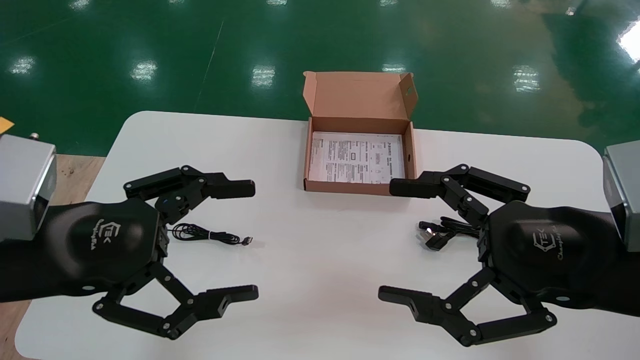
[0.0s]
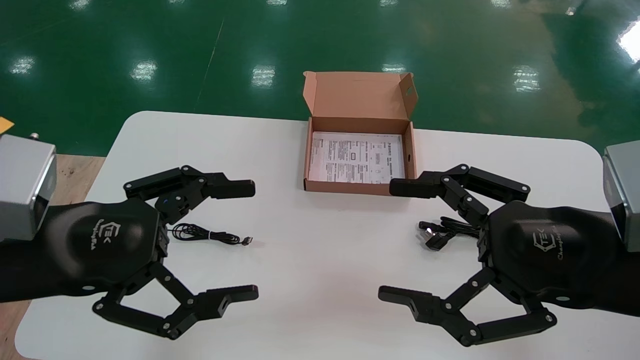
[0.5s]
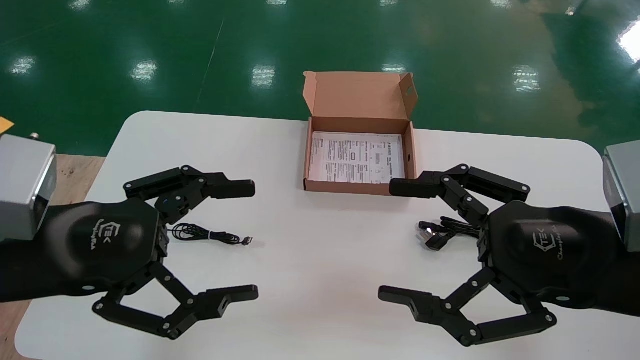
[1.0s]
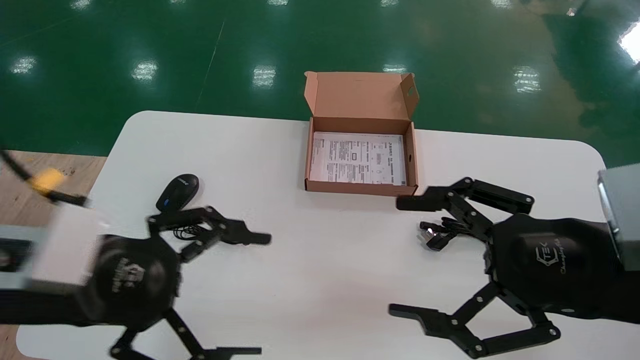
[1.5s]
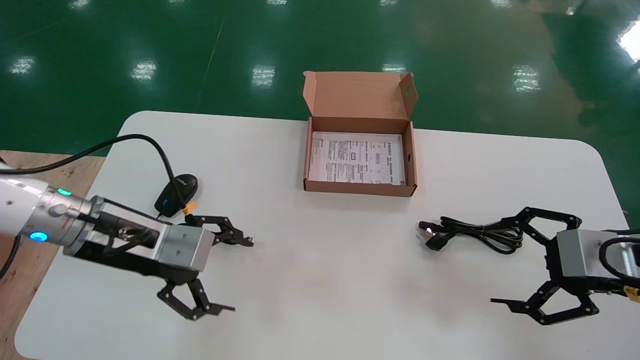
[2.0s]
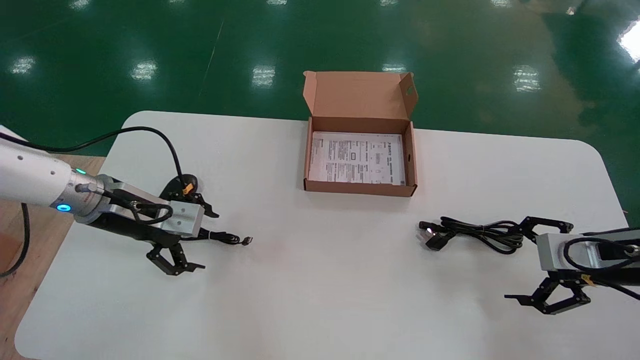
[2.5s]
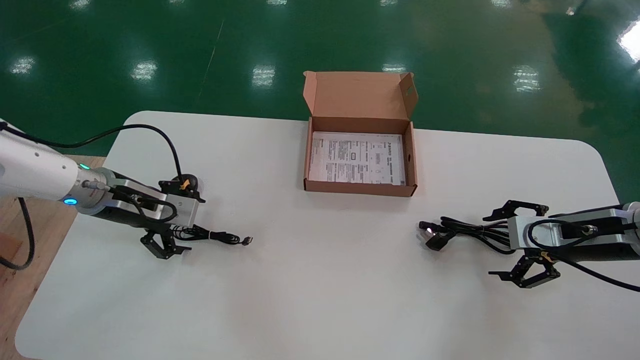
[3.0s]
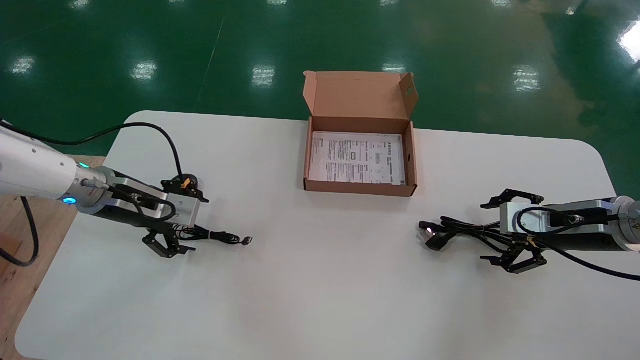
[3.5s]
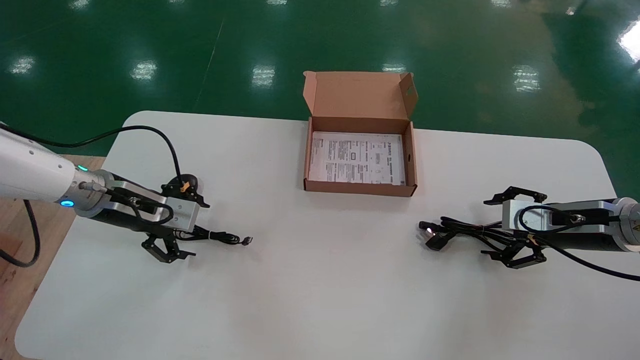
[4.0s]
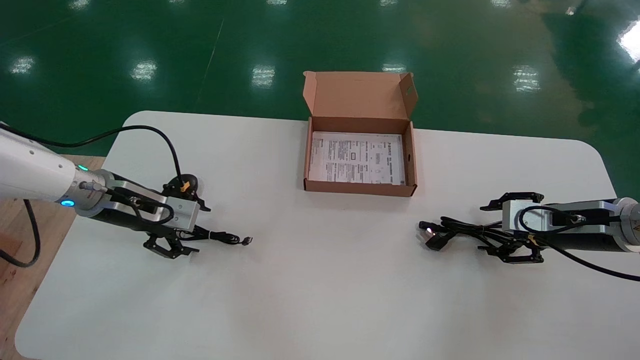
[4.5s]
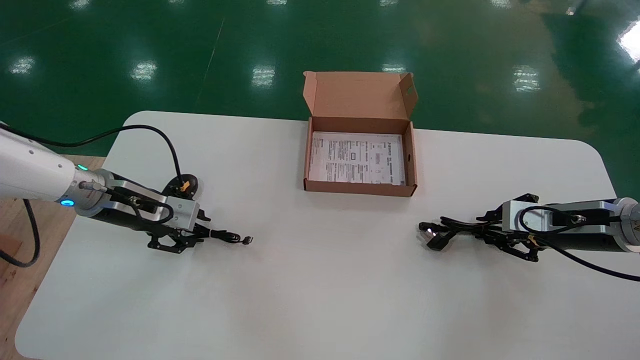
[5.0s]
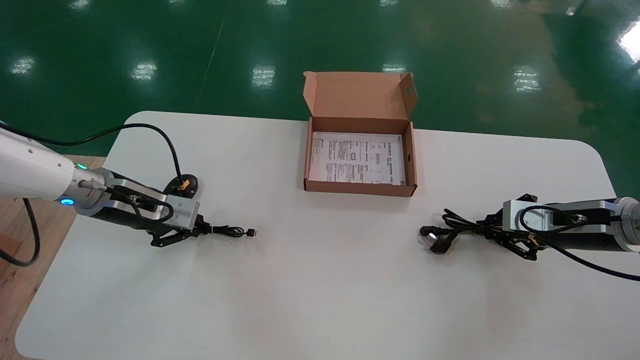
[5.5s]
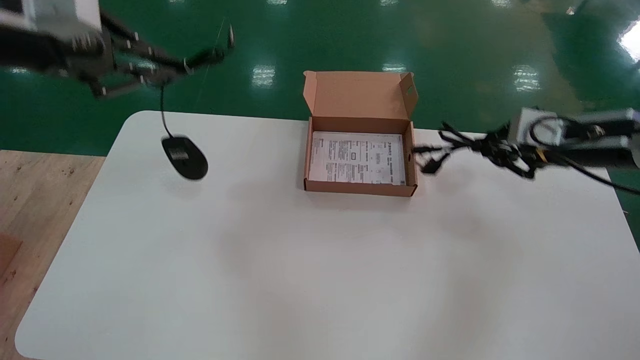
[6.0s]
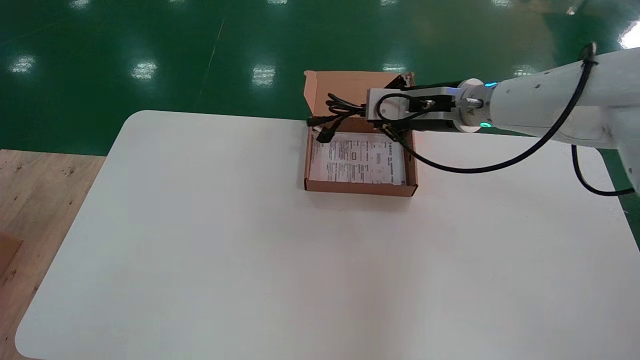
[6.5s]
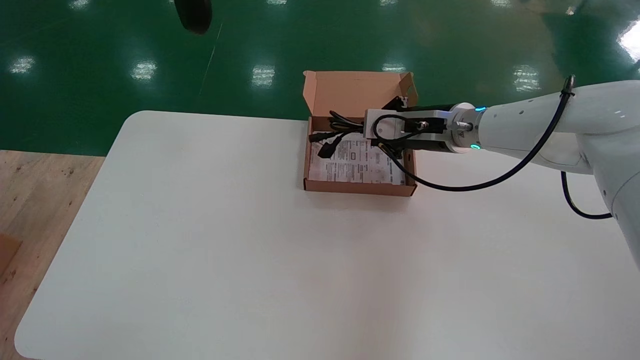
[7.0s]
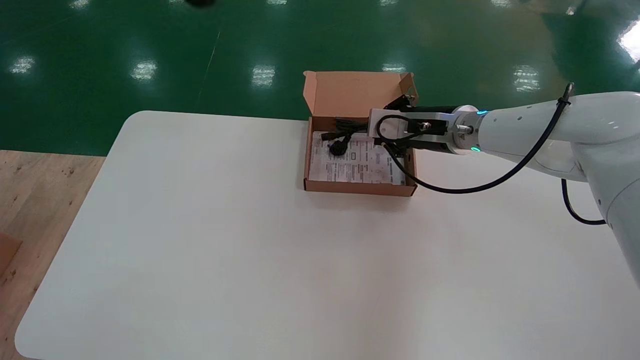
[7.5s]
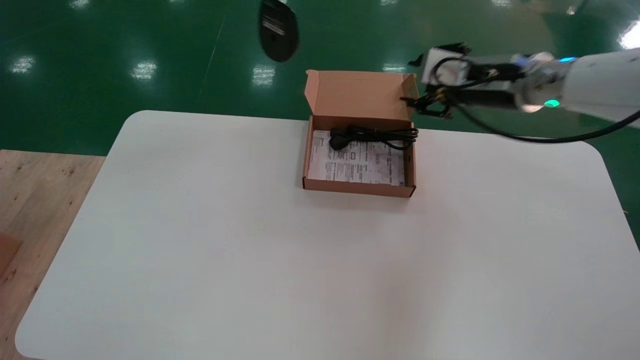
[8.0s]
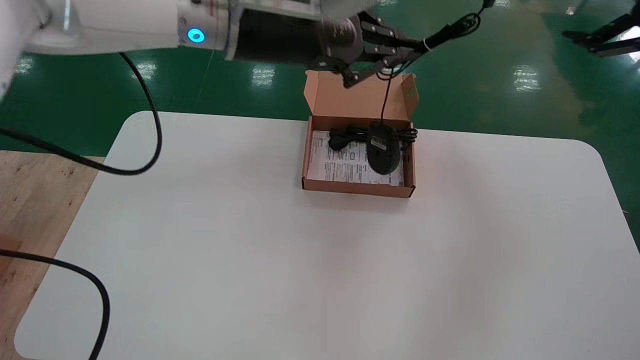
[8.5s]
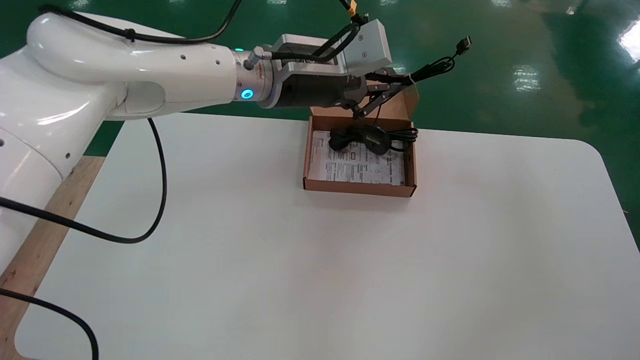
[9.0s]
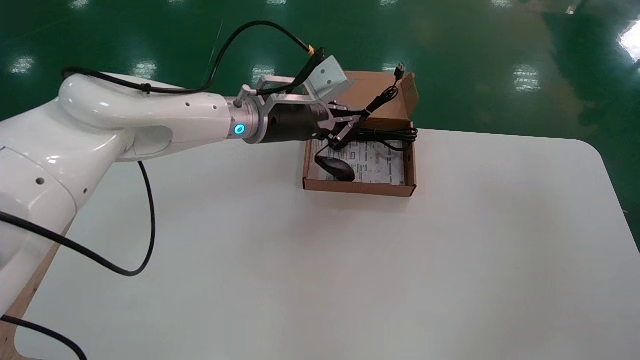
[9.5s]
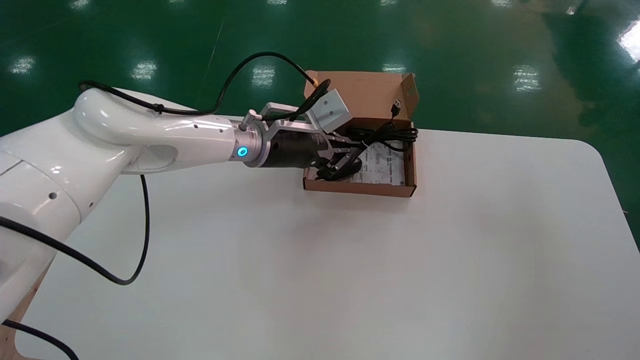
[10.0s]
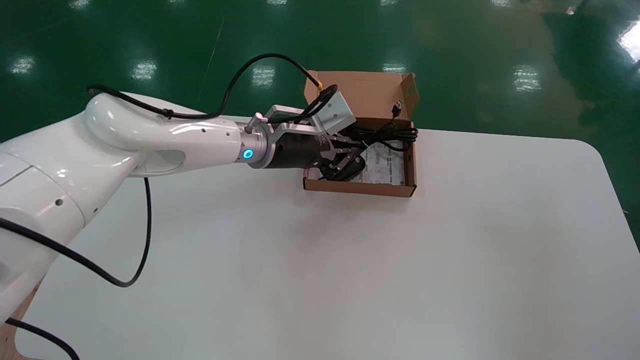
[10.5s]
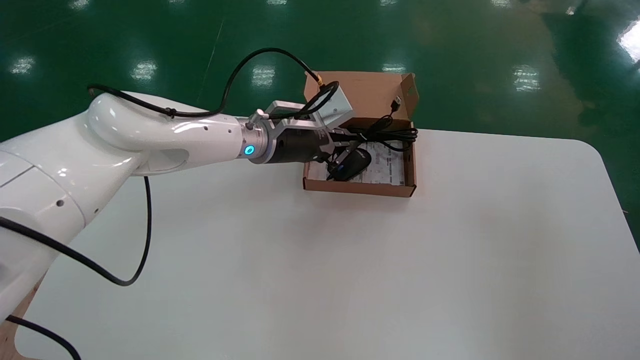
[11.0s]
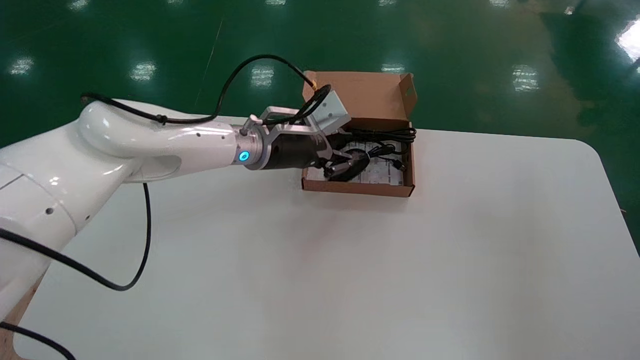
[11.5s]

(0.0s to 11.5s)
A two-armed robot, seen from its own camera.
Step, 2.0s - 5.5s: Simultaneously pick up the mouse and power cord from the accessory packaging area.
0.0s - 2.0s: The right gripper shifts about 15 cm to the right and forward; the left gripper is displaced forward by approximately 15 cm.
2.0s - 4.0s: The left gripper is displaced forward and to the left by about 10 cm. Meanwhile the right gripper goes roughly 15 cm forward.
4.0s - 6.0s: The right gripper is displaced upward by some 10 cm, and closes its fingers. The left gripper travels upward by approximately 25 cm, and closes.
6.0s - 7.5s: The right gripper shifts some 20 cm to the left and forward. The left gripper moves upward and backward, approximately 20 cm.
7.5s - 9.5s: The left gripper shifts roughly 40 cm downward, forward and to the right. The right gripper shifts some 40 cm to the right and backward, and opens.
9.5s - 11.5s: The left gripper goes approximately 5 cm downward, while the right gripper shifts by some 5 cm.

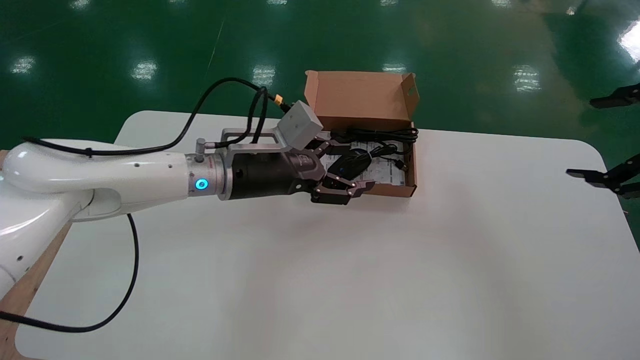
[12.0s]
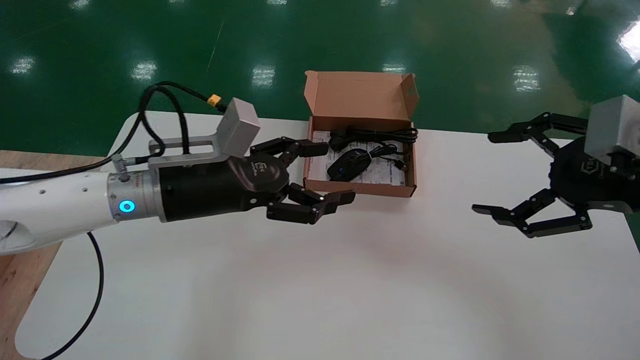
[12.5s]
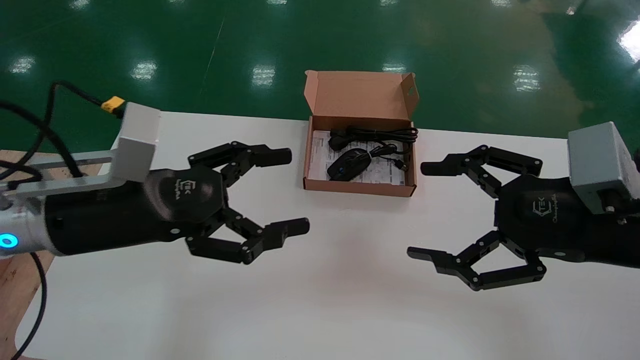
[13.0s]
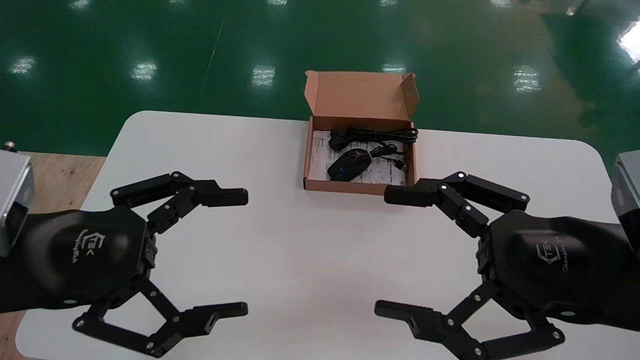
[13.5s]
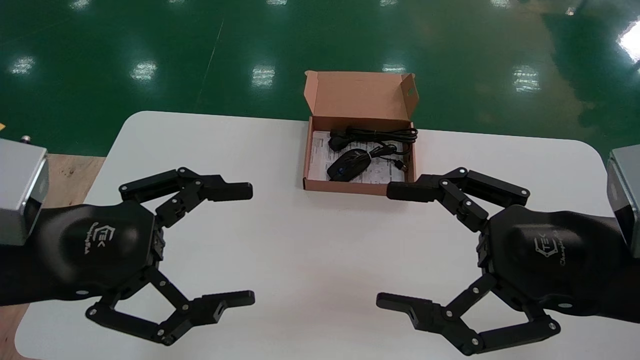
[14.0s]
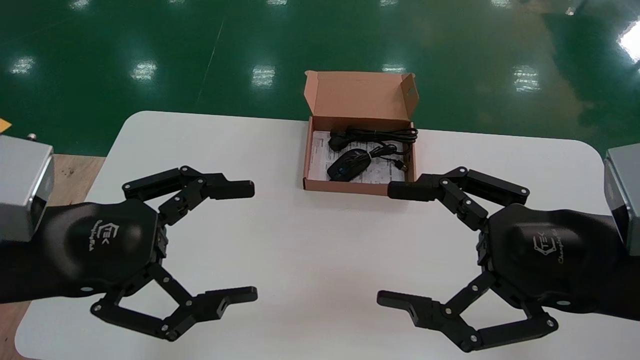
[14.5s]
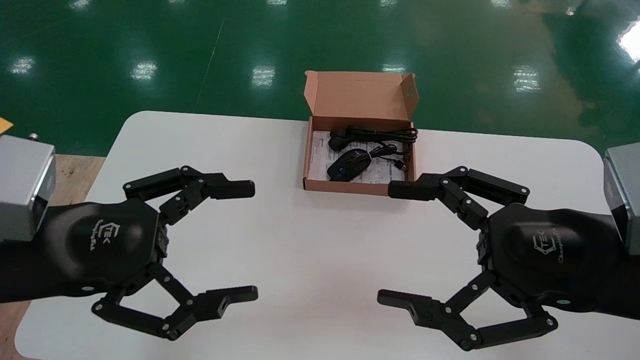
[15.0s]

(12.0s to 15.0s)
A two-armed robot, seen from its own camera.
12.0s - 13.5s: The right gripper travels to the left and downward by about 20 cm, while the left gripper travels backward and to the left by about 25 cm, and opens.
13.5s - 15.0s: Neither gripper changes place.

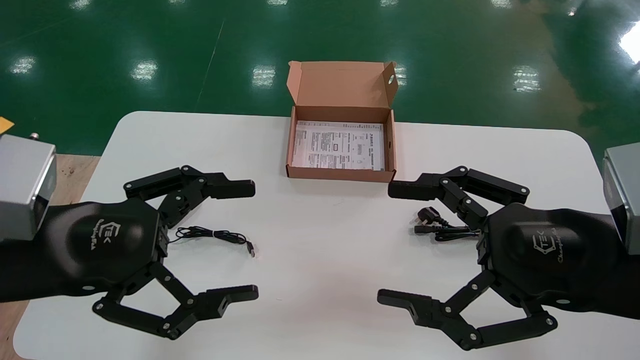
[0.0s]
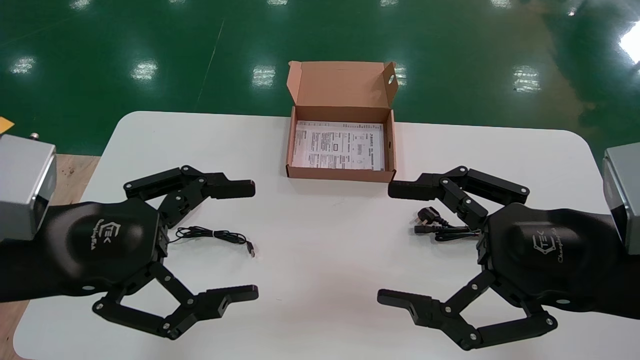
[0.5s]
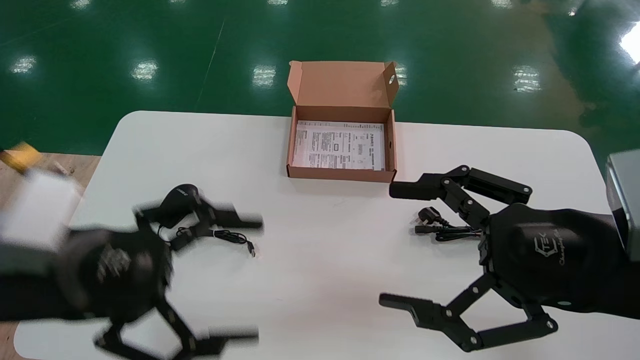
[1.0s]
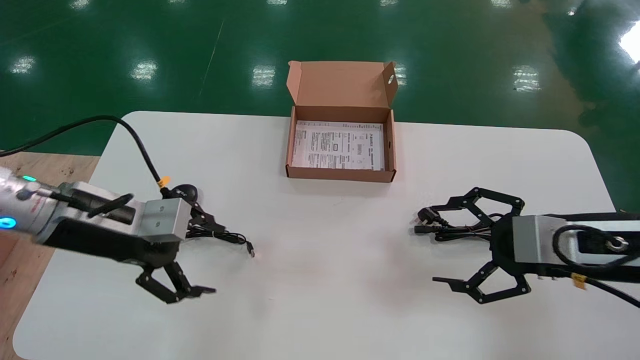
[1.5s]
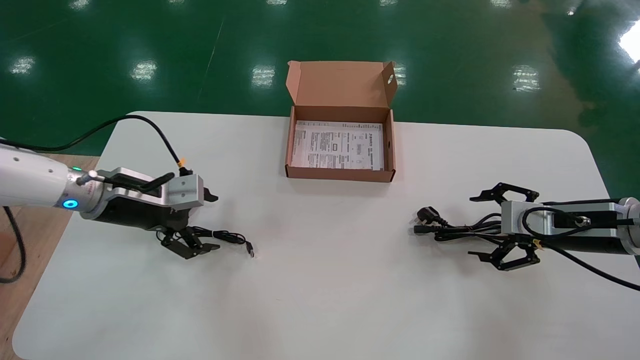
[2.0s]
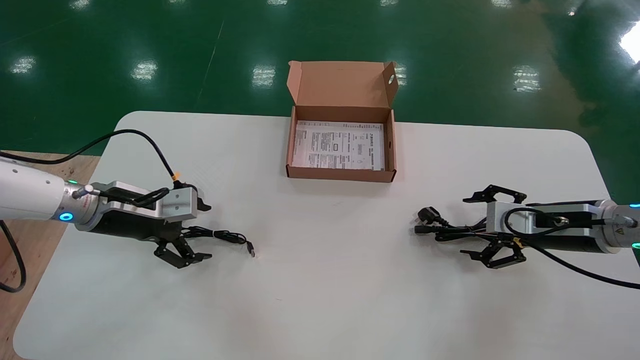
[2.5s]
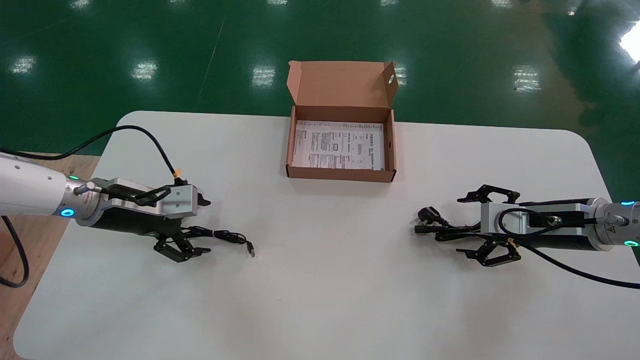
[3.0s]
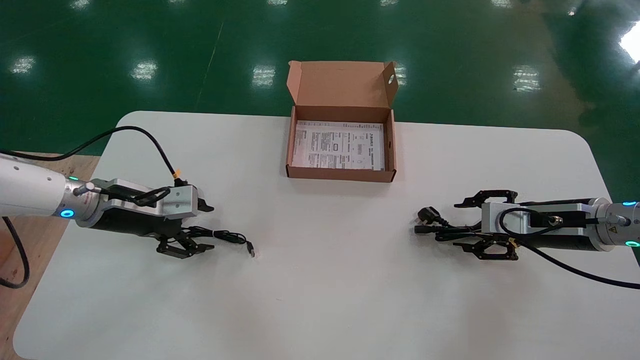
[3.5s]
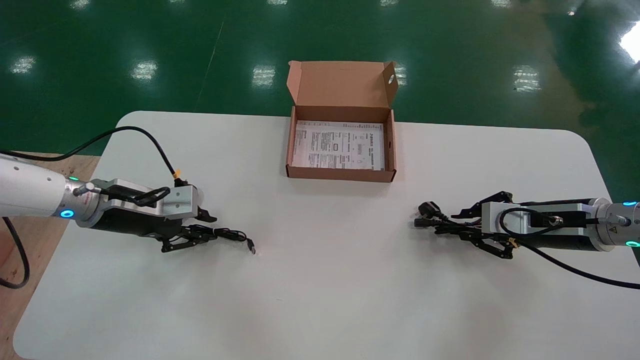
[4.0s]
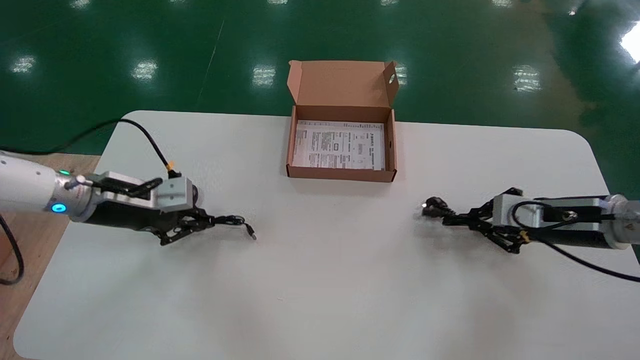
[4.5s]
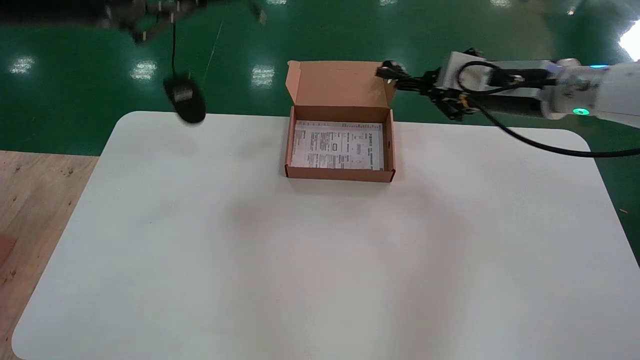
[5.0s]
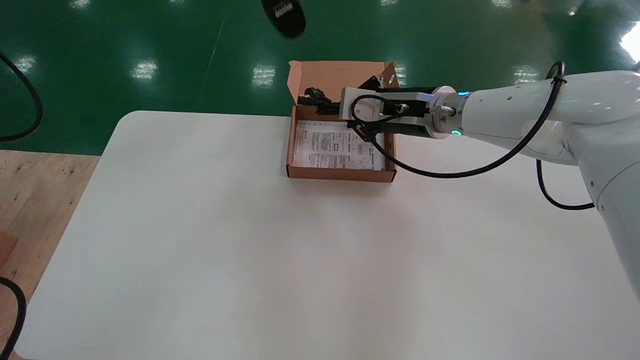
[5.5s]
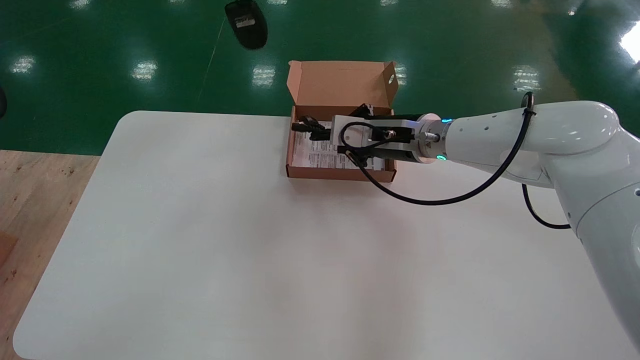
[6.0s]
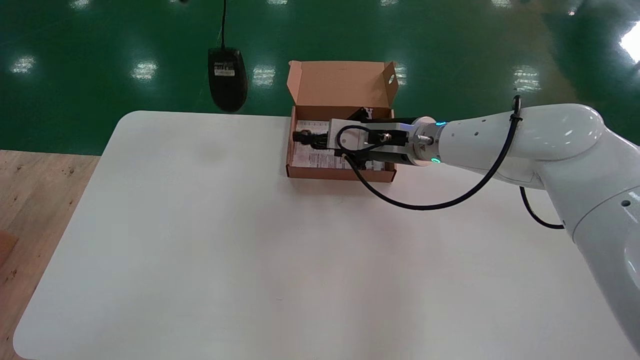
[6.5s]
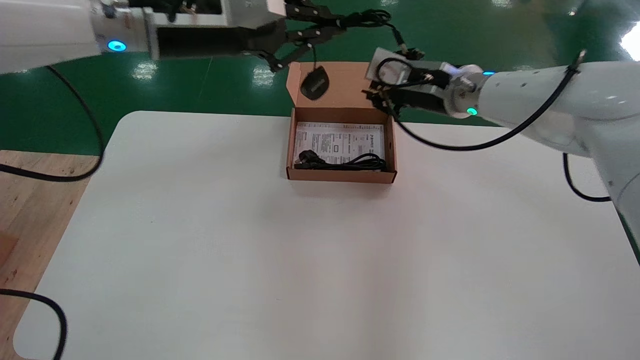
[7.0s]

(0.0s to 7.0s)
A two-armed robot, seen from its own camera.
Step, 1.5s - 4.5s: Simultaneously pick up the mouse and power cord from the accessory packaging area.
0.0s - 2.0s: The right gripper travels forward and to the right by approximately 20 cm; the left gripper goes approximately 20 cm forward.
2.0s - 3.5s: The grippers make only small movements.
3.5s - 5.0s: The left gripper travels upward by roughly 25 cm, and closes up, while the right gripper travels upward and to the left by about 20 cm, and closes its fingers.
5.0s - 7.0s: The right gripper is displaced to the left by roughly 10 cm, while the left gripper is displaced to the right by approximately 15 cm.
